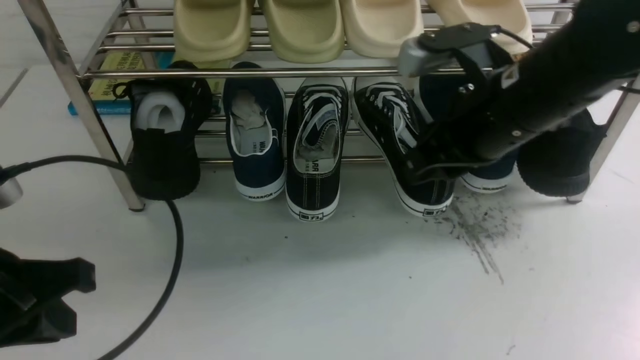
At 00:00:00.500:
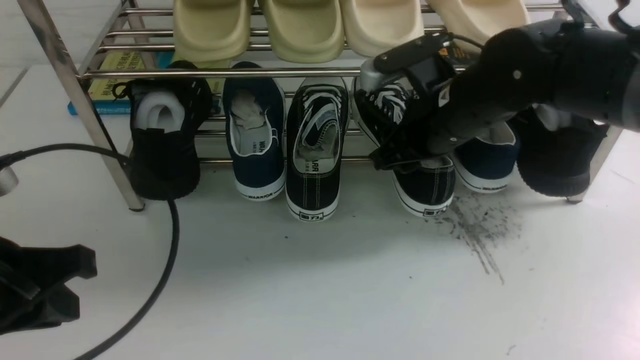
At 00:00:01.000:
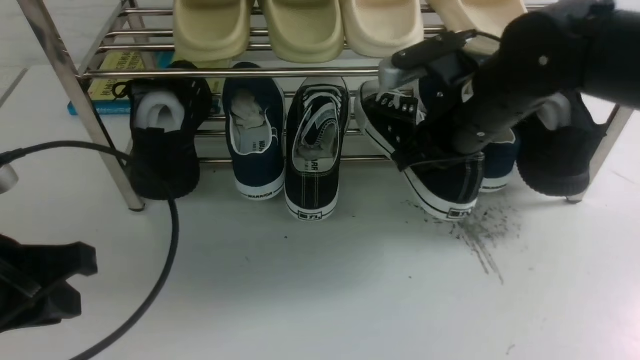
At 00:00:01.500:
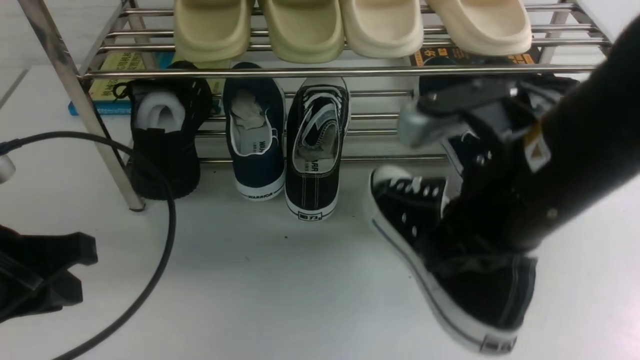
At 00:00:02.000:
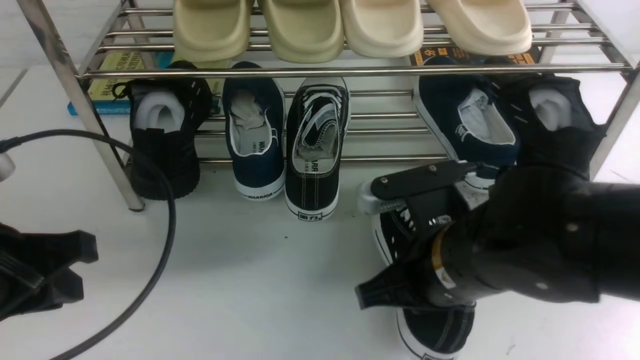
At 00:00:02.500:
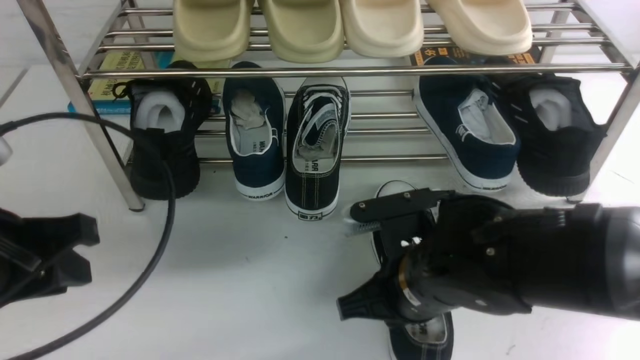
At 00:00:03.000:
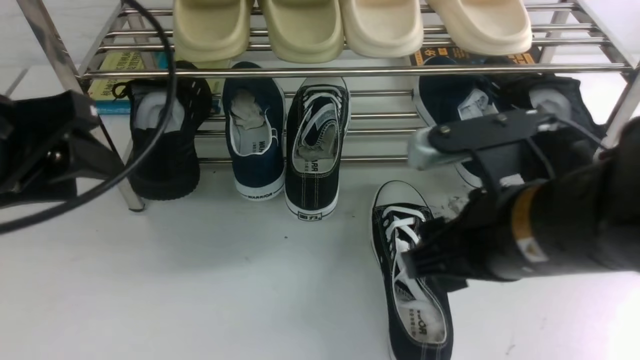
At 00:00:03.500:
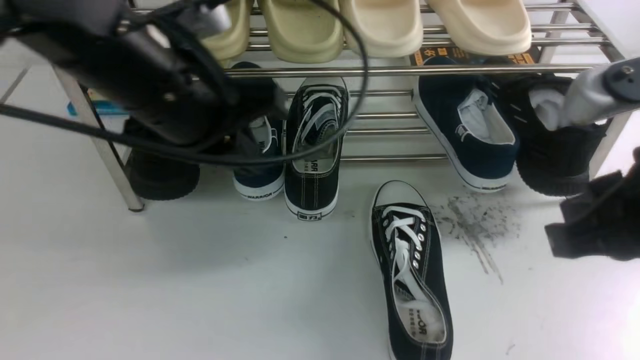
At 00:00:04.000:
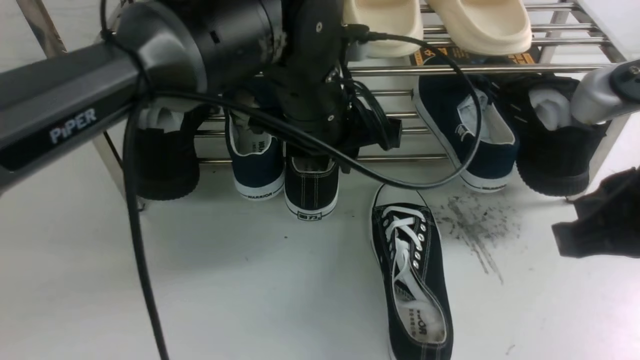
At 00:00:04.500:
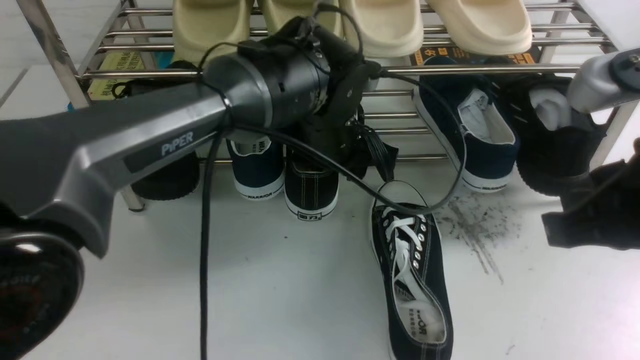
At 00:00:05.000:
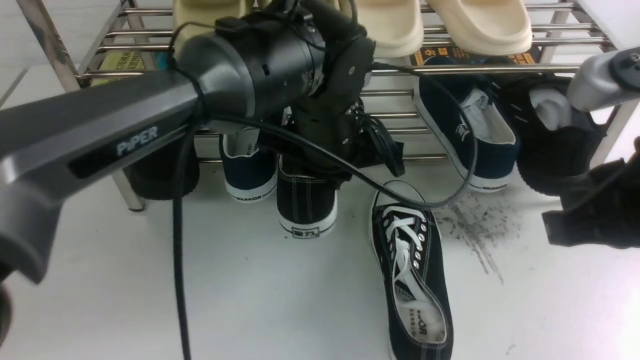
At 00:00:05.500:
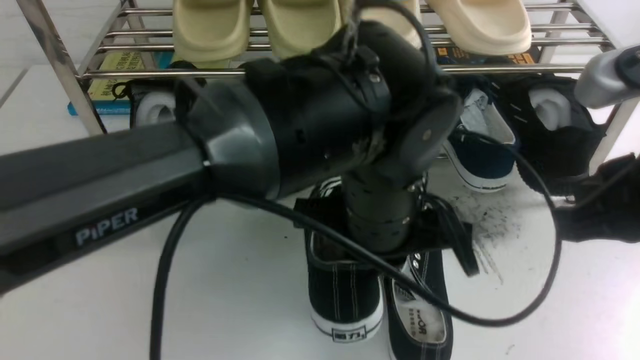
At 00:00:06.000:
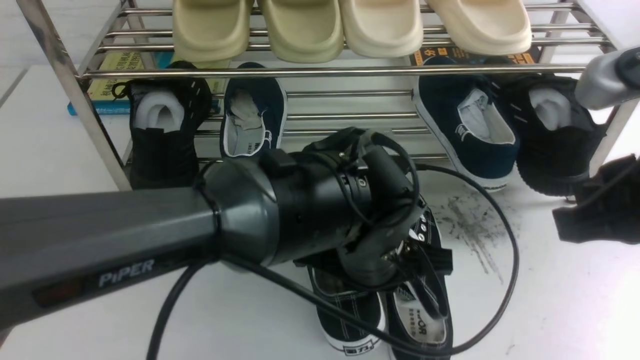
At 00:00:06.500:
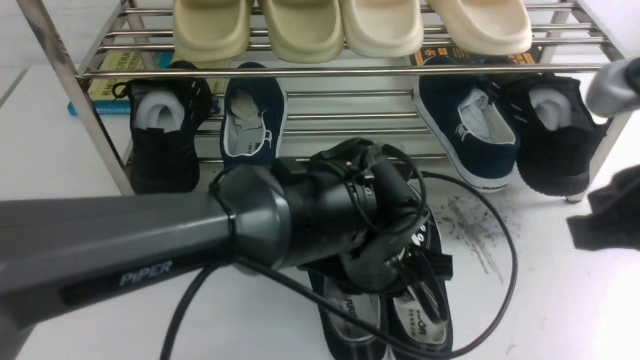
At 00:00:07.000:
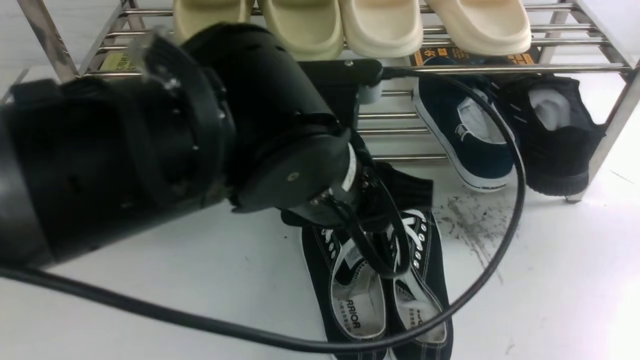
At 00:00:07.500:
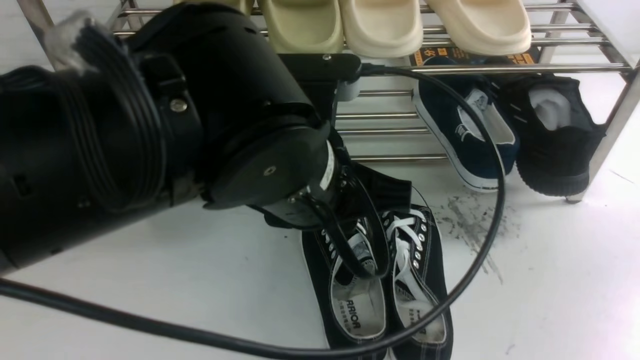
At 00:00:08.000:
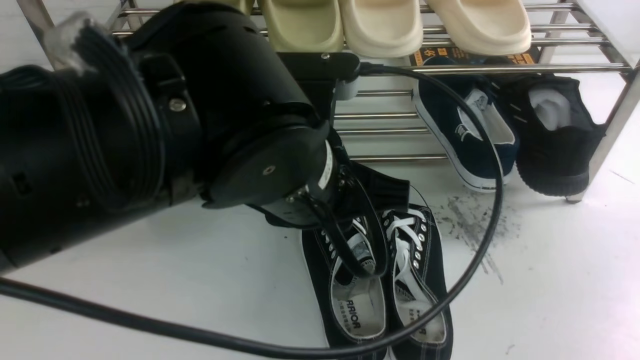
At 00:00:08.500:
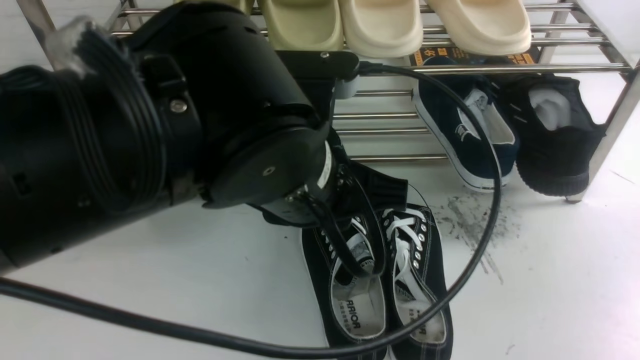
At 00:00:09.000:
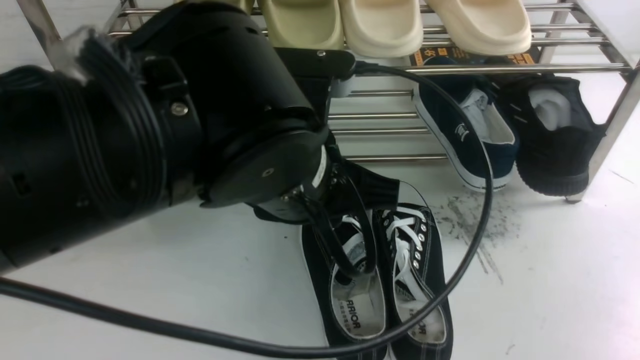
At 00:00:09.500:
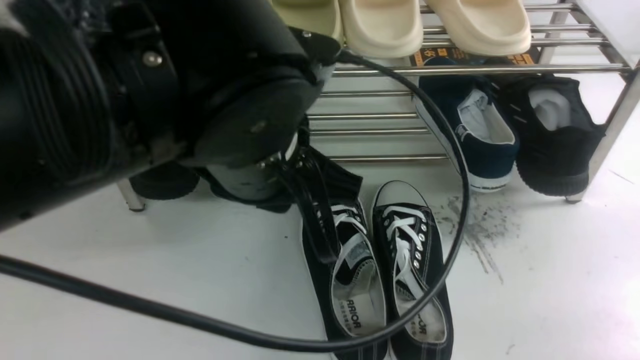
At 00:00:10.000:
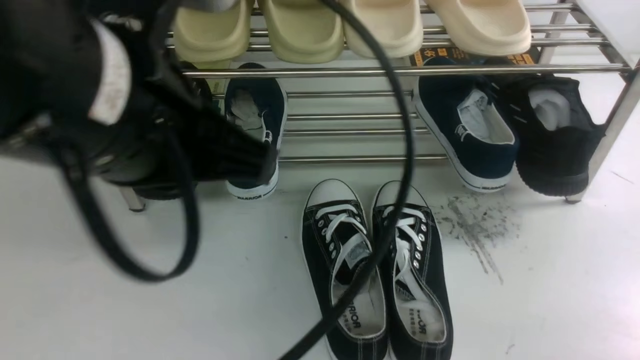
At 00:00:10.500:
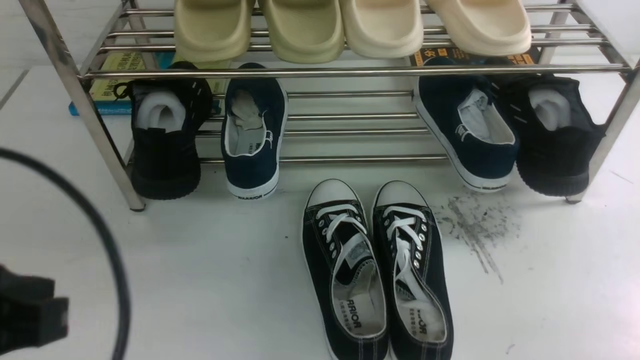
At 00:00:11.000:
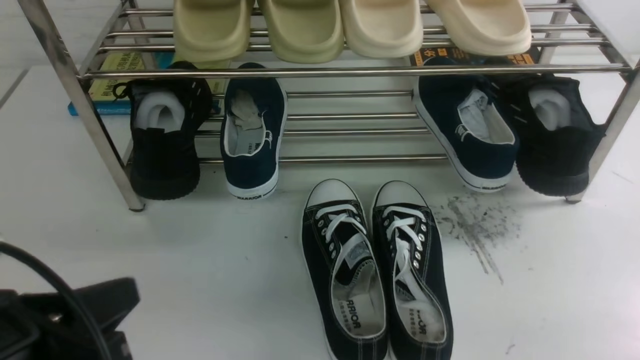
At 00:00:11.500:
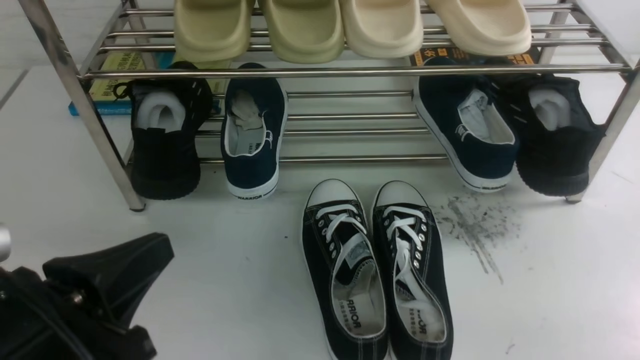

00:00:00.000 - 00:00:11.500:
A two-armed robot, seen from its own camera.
Step, 00:00:01.500 - 00:00:02.500: use the right arm to take out the clamped shoe from the shoe rack and put it down.
Step, 00:00:03.000 - 00:00:05.000: use the left arm to clamp a shoe in the middle of the shoe rack.
Step, 00:00:05.500 - 00:00:06.500: Use your left arm to remove the clamped shoe from the shoe rack and put it down.
00:00:00.000 - 00:00:02.000: The right gripper moves backward, downward and to the left, some 15 cm, and closes its fingers.
00:00:02.000 - 00:00:04.000: The right gripper moves upward, to the right and backward, some 20 cm, and opens and closes again, while the left gripper goes approximately 30 cm to the right and forward.
00:00:04.000 - 00:00:06.000: The left gripper moves backward and downward, some 10 cm, and closes.
00:00:06.000 - 00:00:07.500: The right gripper shifts roughly 15 cm to the right, backward and downward; the left gripper is displaced upward and to the left by about 10 cm, and opens its fingers.
00:00:07.500 - 00:00:09.500: The right gripper heads downward, covering roughly 10 cm. The left gripper closes up.
00:00:09.500 - 00:00:11.500: The left gripper heads to the left, backward and downward, covering approximately 20 cm.

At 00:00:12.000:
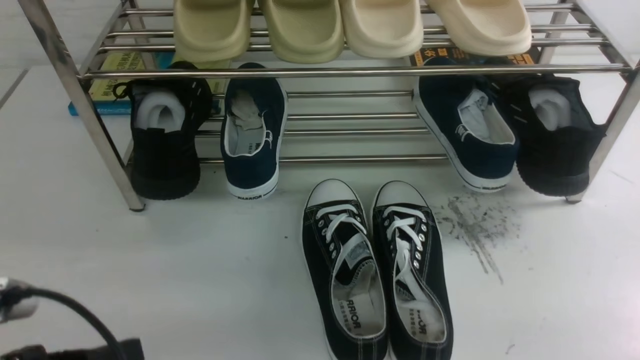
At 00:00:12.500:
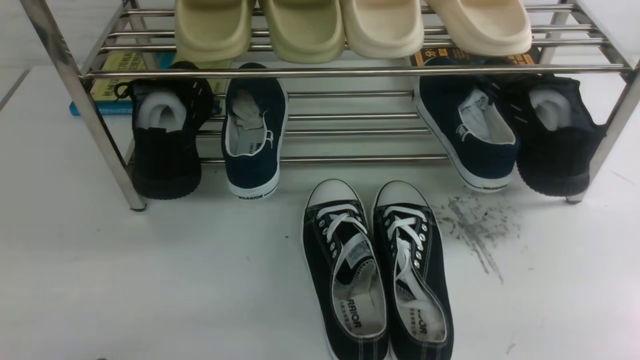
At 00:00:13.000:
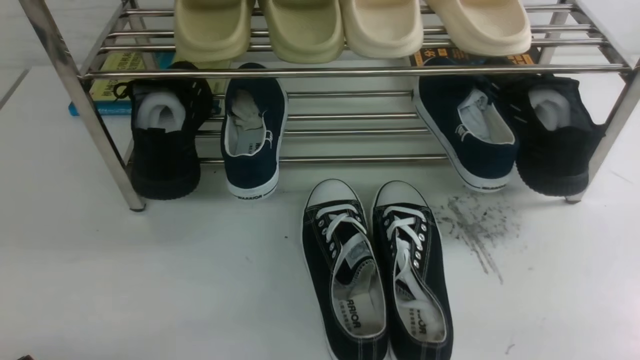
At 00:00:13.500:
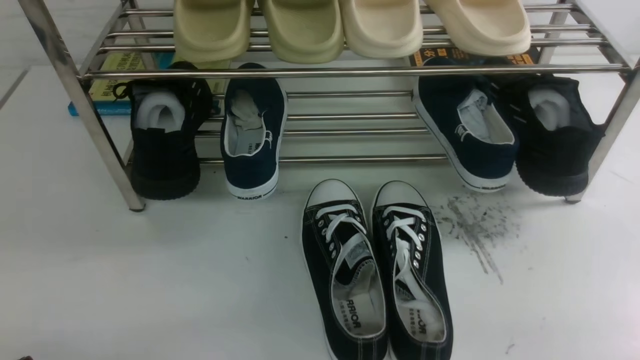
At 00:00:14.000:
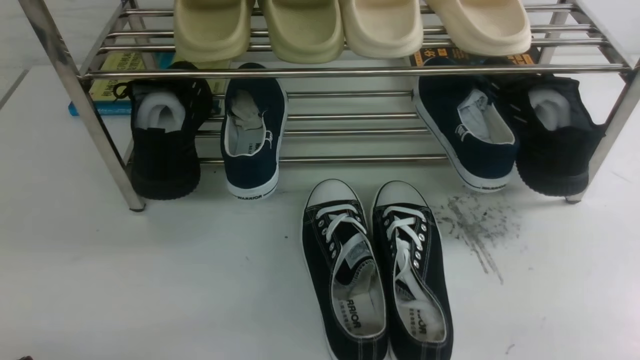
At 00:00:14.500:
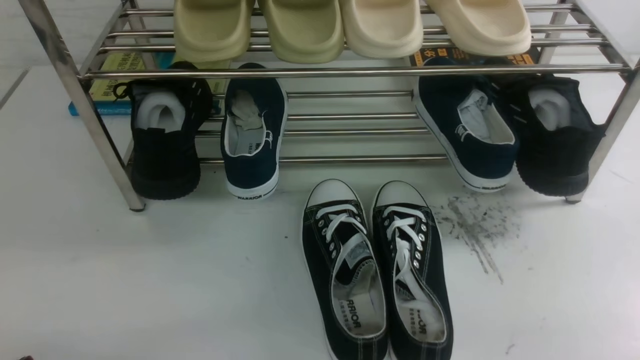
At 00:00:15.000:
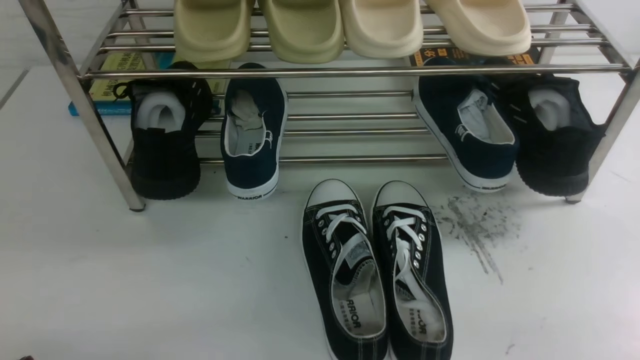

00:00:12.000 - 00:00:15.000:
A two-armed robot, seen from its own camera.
00:00:12.000 - 00:00:13.500: The left gripper is displaced downward and to the left by some 10 cm.
00:00:13.500 - 00:00:15.000: Both grippers stay about where they are.
